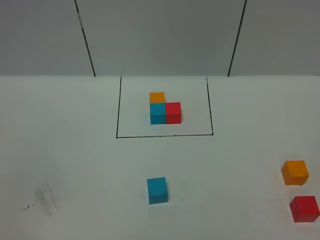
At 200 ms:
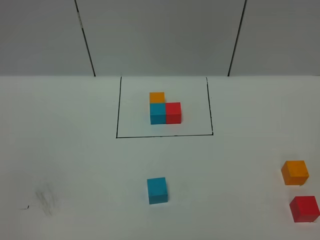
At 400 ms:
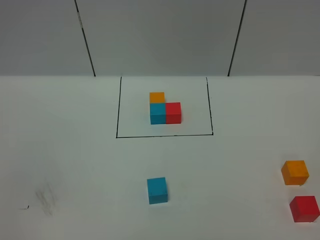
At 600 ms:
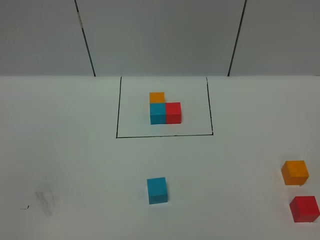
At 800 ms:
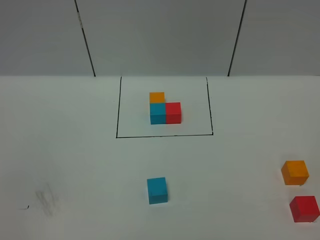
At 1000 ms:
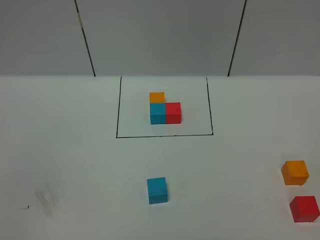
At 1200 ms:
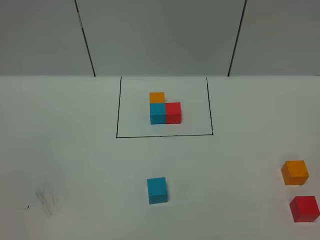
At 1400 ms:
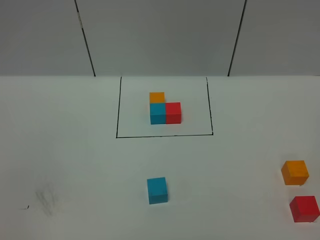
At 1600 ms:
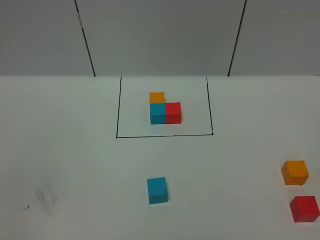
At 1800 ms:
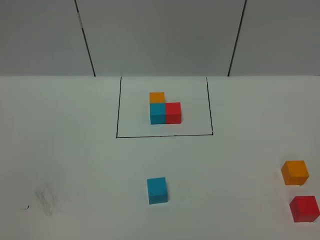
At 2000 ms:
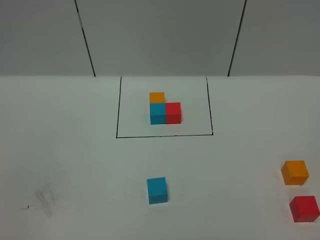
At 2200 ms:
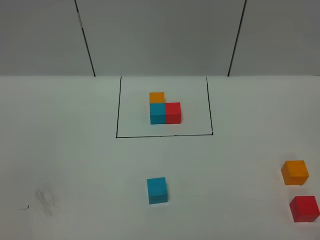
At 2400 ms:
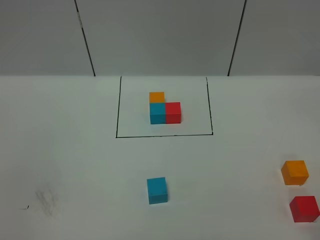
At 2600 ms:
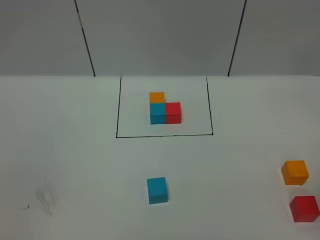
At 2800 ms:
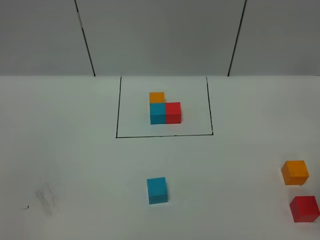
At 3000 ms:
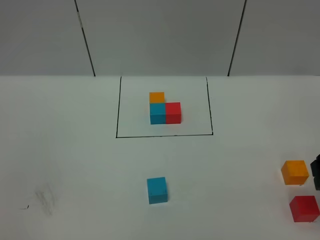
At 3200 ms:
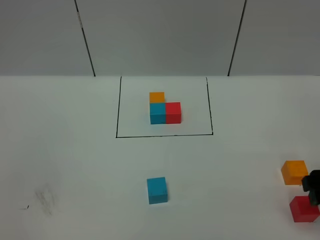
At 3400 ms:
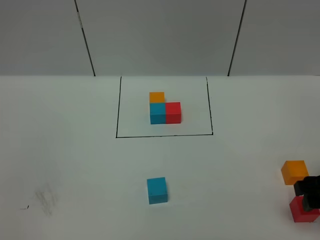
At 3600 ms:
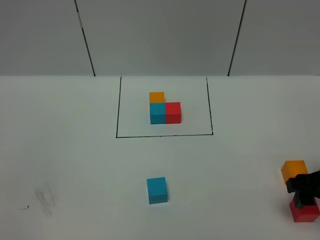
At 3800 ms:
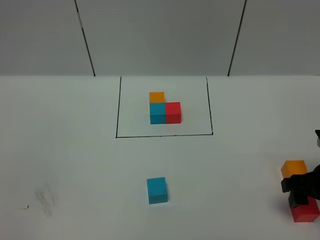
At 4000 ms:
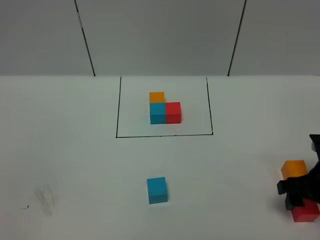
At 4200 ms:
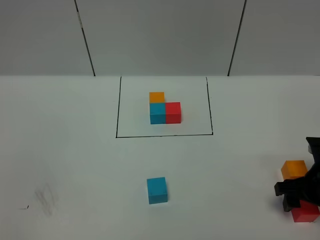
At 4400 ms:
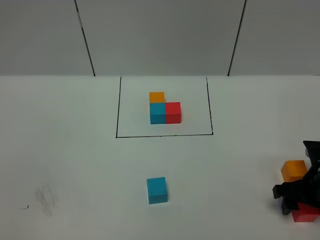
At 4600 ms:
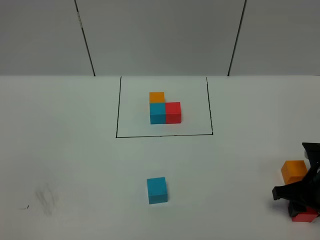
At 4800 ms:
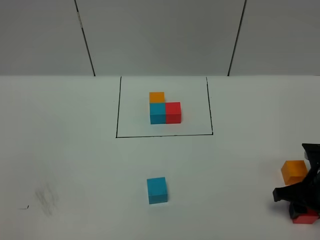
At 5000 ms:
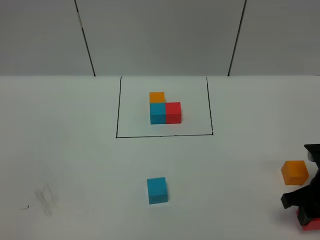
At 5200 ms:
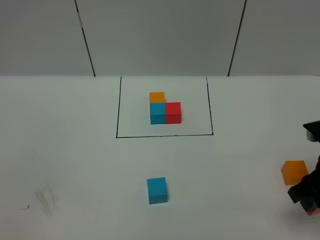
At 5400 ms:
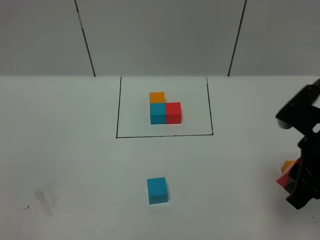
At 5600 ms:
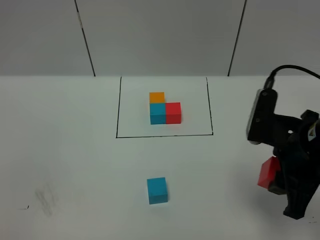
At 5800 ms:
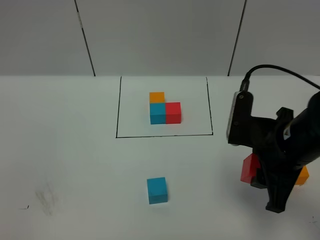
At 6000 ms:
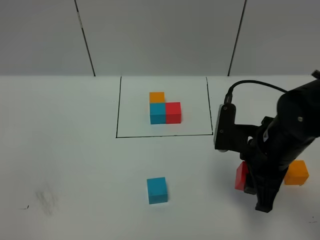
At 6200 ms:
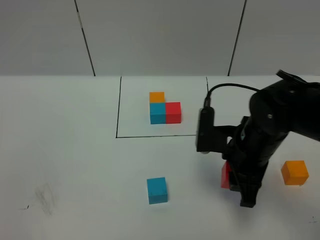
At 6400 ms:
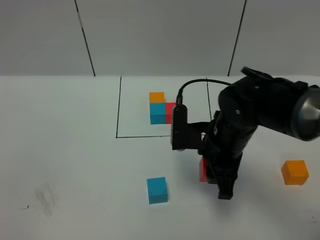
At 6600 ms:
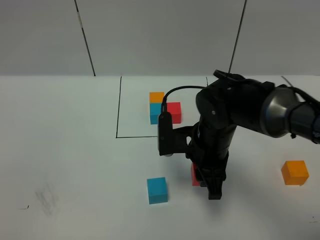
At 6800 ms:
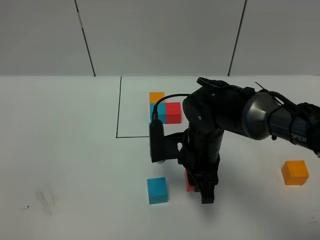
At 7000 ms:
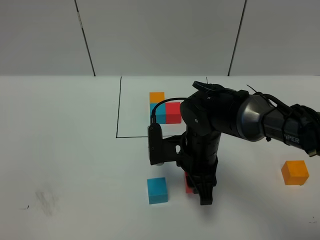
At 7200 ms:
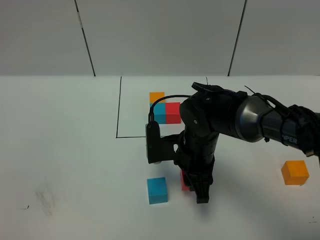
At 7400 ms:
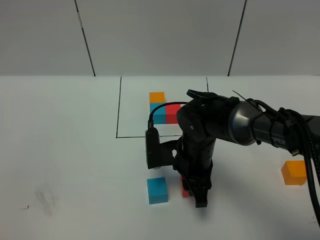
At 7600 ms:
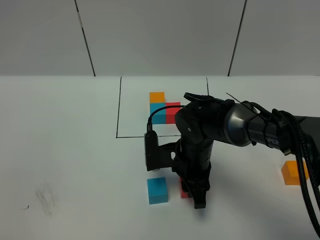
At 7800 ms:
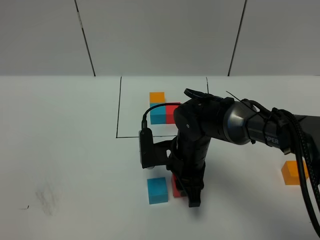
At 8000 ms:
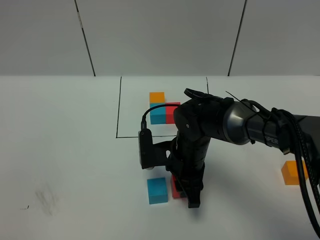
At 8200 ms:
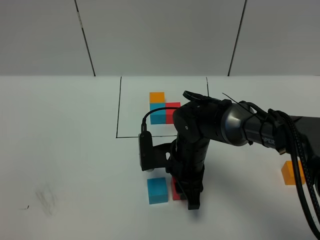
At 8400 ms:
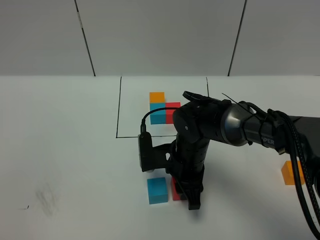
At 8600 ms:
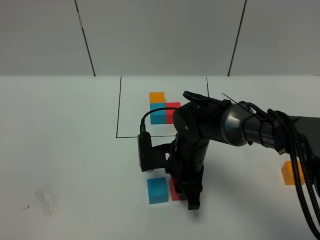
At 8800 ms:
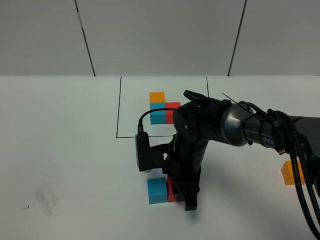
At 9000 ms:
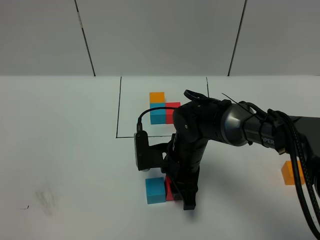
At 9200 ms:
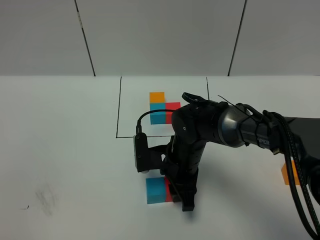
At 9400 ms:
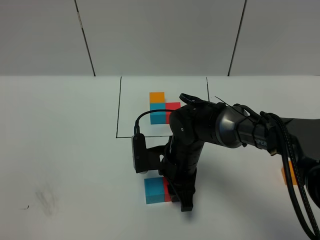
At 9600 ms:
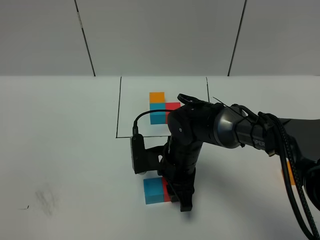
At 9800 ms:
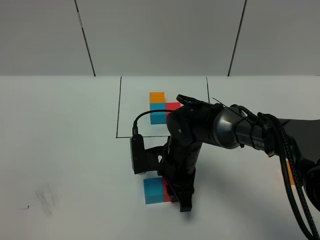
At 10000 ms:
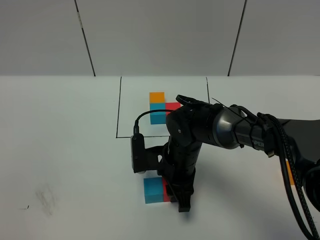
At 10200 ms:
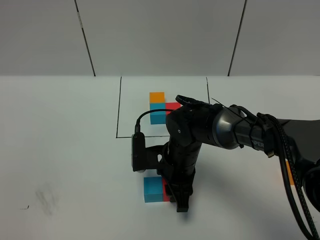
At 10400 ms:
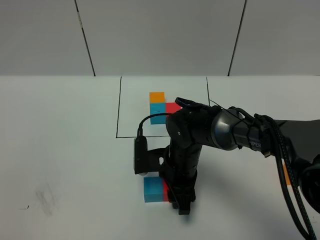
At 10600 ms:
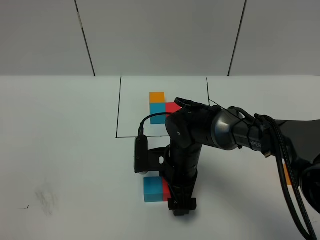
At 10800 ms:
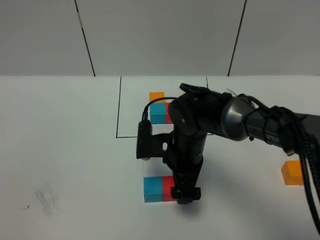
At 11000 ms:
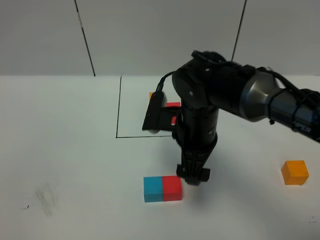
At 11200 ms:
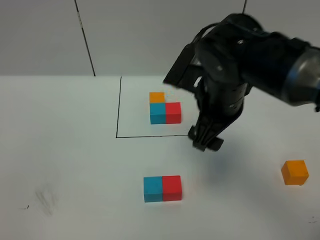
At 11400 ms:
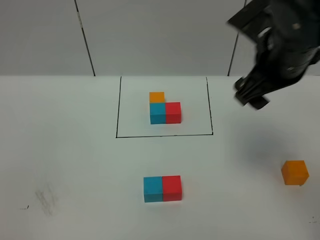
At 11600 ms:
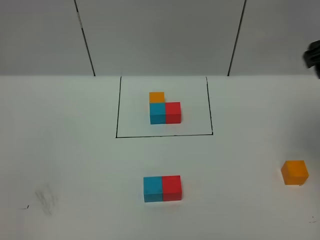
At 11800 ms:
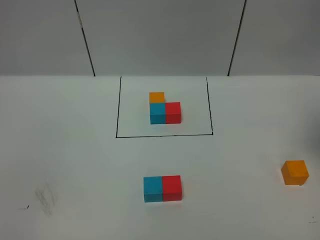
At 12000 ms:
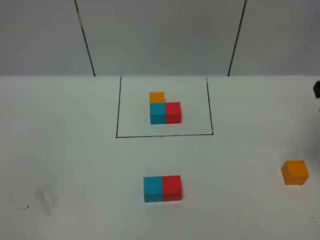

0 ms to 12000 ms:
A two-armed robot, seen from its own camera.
Task of the whole recording: According to the building block template in front, assemble the scattered blocks together.
Step, 0 ms to 10600 ms: Put the red cube on the right of the blue cube.
3000 ms to 4400 ms: The right gripper goes approximately 15 cm downward.
4400 ms to 6000 ms: The right gripper shifts approximately 15 cm to the left and upward, and closes.
6000 ms to 7600 ms: The right gripper heads to the left and downward, covering approximately 15 cm.
7600 ms to 9000 ms: The grippers stay close to where they were, moving slightly.
9000 ms to 10400 ms: The right gripper opens up.
10400 ms to 12000 ms: The right gripper moves to the right and upward, roughly 35 cm, and opens.

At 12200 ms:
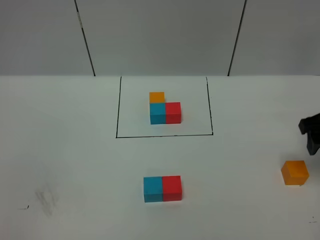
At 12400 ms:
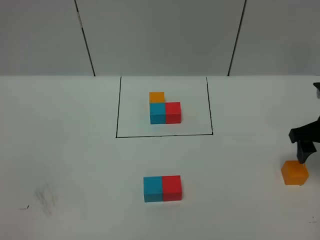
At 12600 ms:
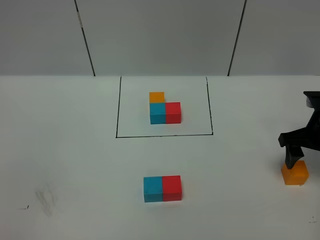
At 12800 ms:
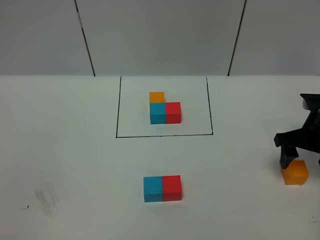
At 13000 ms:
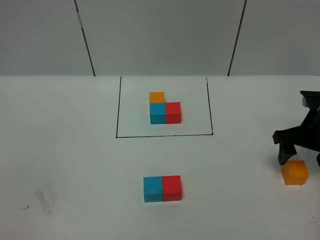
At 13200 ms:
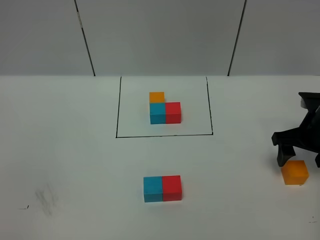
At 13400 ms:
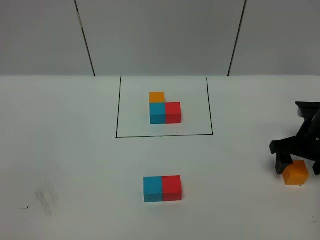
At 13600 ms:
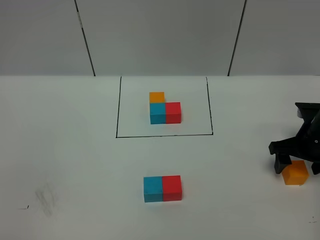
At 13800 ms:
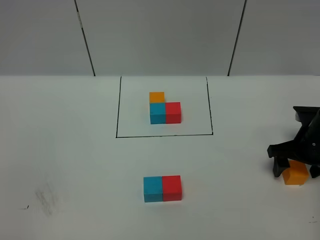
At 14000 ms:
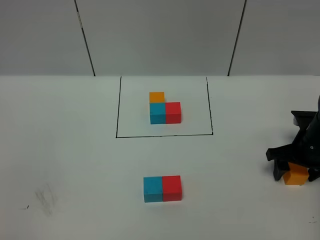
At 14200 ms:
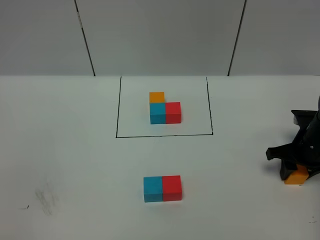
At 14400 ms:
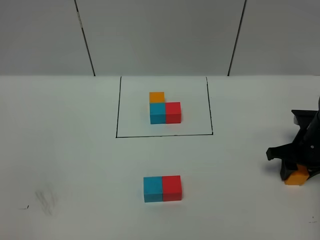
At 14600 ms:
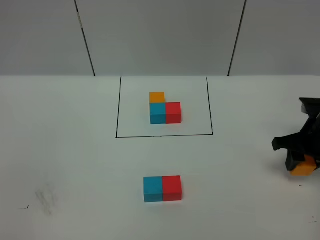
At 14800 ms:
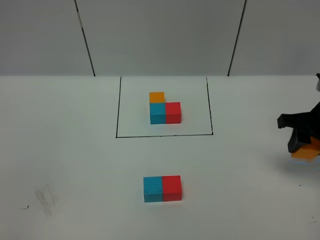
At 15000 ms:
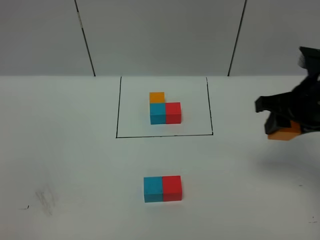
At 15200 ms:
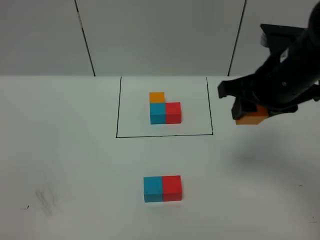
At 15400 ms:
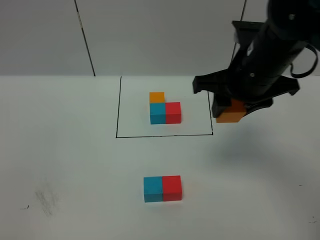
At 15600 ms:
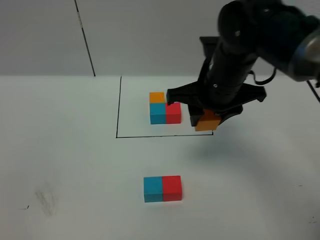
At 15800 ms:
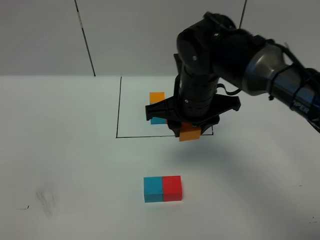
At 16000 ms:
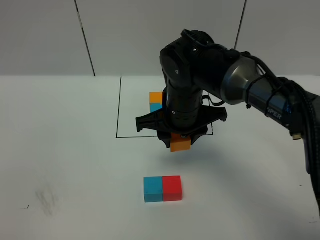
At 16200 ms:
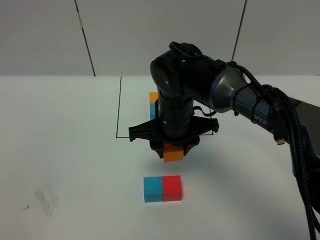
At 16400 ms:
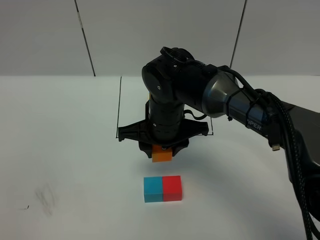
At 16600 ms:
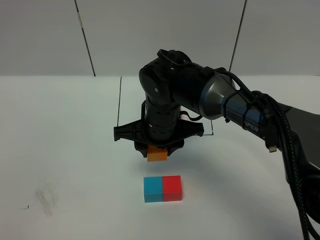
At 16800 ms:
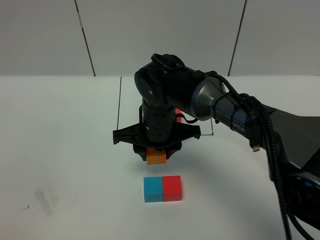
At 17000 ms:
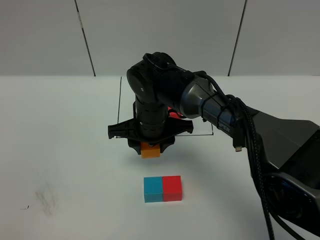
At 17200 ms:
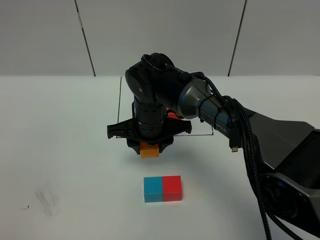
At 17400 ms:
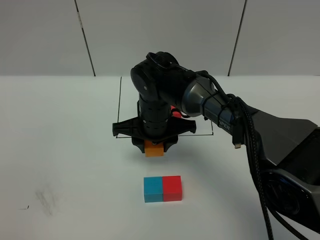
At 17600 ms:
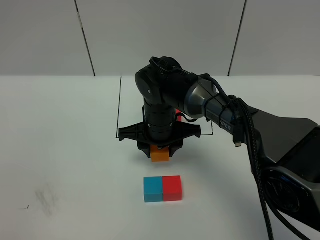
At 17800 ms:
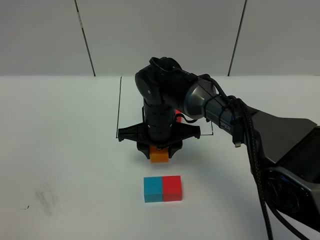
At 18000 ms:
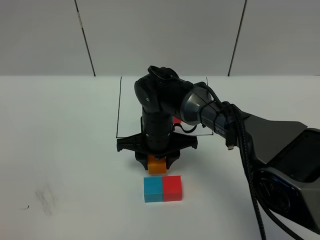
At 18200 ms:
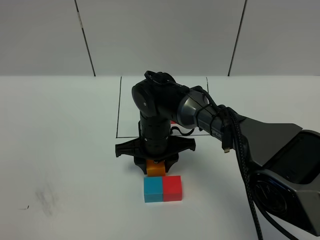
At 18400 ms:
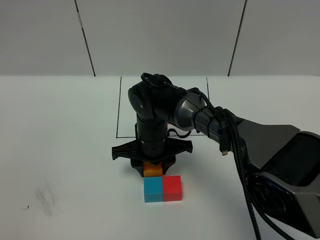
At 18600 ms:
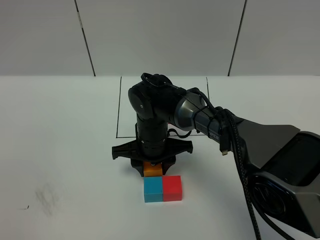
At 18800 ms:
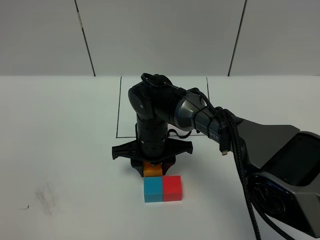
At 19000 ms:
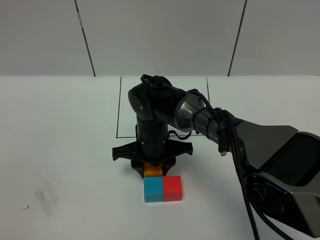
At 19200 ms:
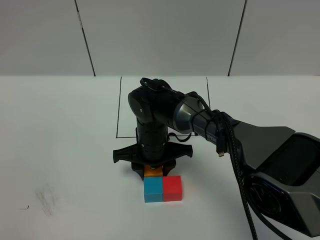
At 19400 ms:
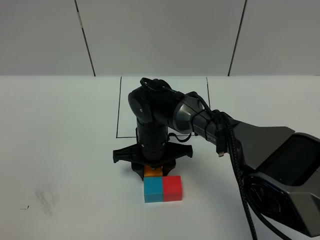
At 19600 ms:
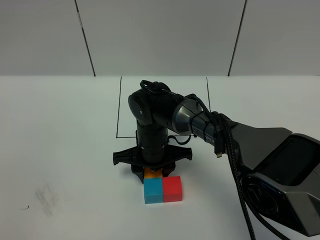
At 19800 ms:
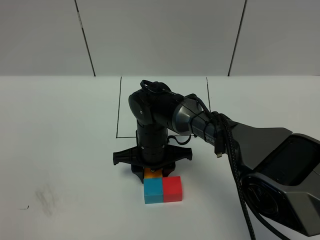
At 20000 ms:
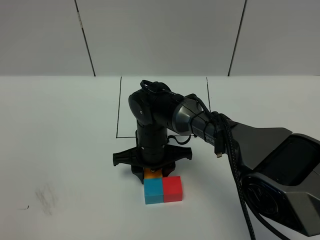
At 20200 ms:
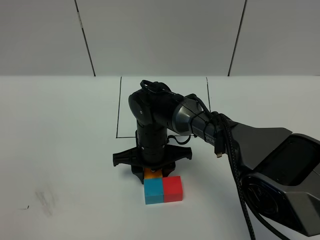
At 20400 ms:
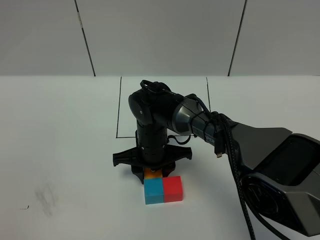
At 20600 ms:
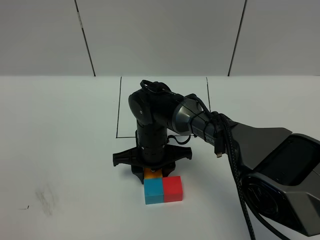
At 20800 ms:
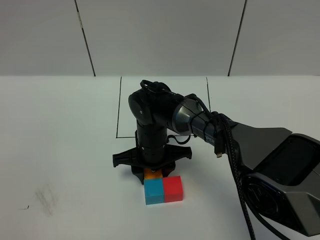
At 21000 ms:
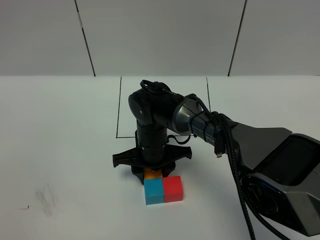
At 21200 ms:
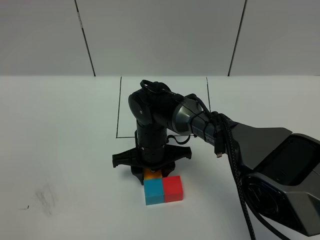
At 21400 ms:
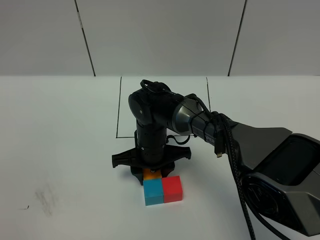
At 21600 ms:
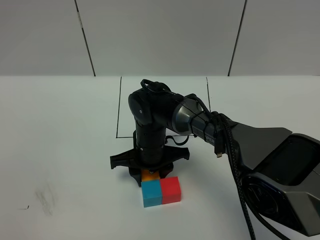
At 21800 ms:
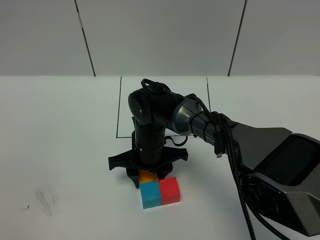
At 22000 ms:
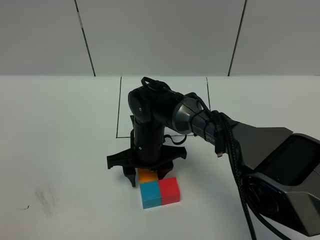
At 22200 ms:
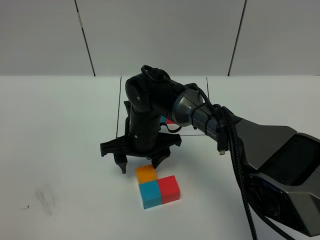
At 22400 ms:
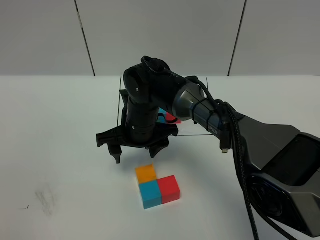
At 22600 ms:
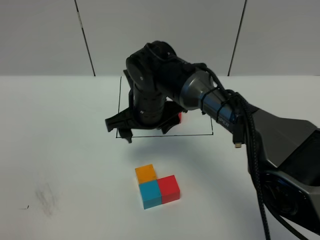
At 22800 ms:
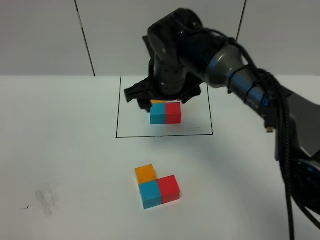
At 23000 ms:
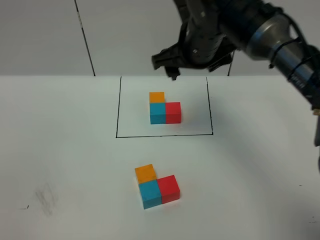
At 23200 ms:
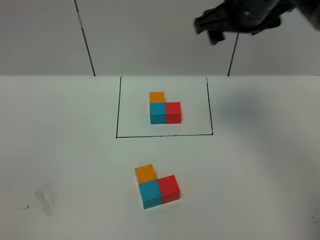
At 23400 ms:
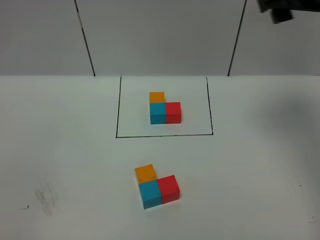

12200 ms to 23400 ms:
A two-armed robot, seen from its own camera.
Task of the whole recording: According to the building block template in front, assemble the scattered blocks together.
Step, 12200 ms to 22000 ms: Put the orange cube on the behind of the blue cube.
12200 ms to 13800 ms: The right gripper moves downward, roughly 10 cm.
13800 ms to 15400 ms: The right gripper goes approximately 25 cm upward and to the left, and closes its fingers.
15400 ms to 17000 ms: The right gripper moves to the left and downward, about 20 cm.
17000 ms to 18600 ms: The right gripper shifts about 5 cm downward.
18600 ms to 21800 ms: There are only small adjustments of the grippers.
21800 ms to 23400 ms: The right gripper is displaced upward and to the right by roughly 40 cm, and opens its fingers.
